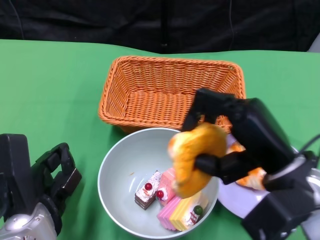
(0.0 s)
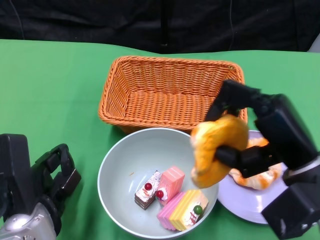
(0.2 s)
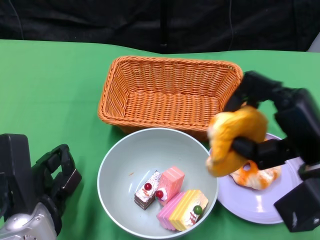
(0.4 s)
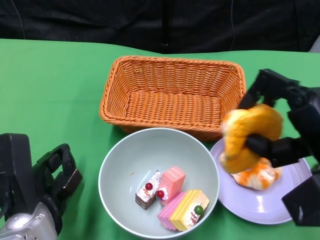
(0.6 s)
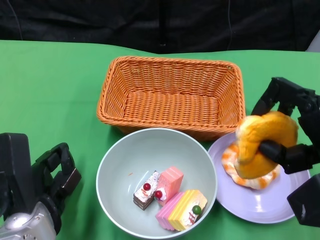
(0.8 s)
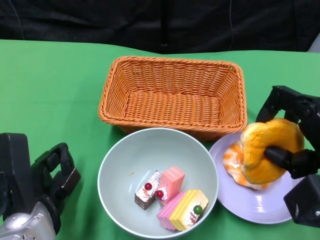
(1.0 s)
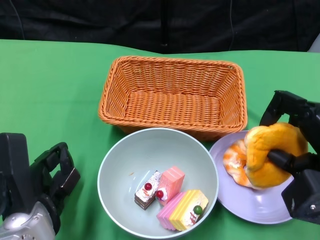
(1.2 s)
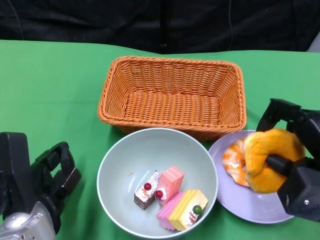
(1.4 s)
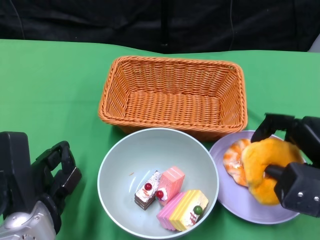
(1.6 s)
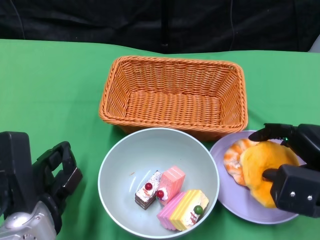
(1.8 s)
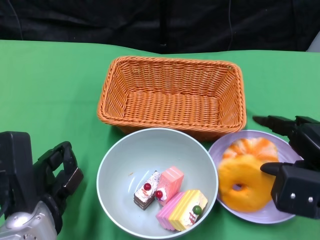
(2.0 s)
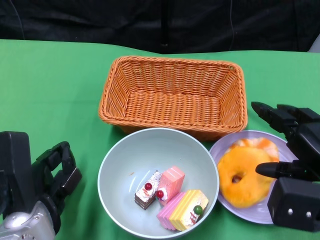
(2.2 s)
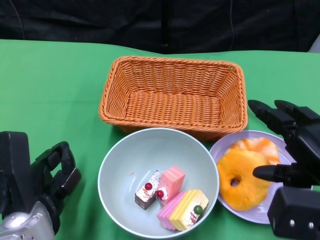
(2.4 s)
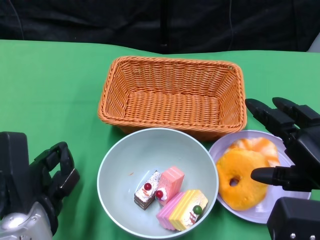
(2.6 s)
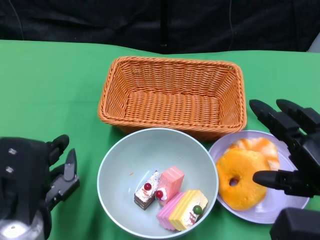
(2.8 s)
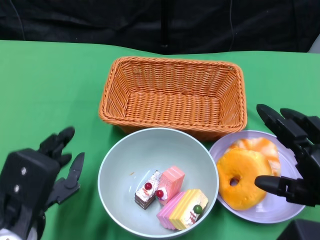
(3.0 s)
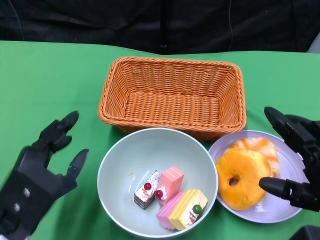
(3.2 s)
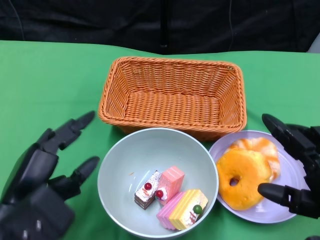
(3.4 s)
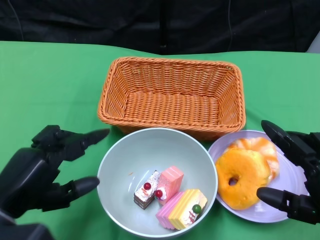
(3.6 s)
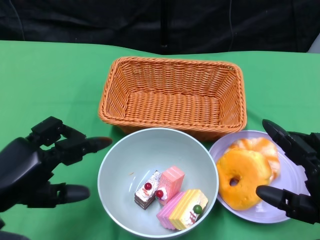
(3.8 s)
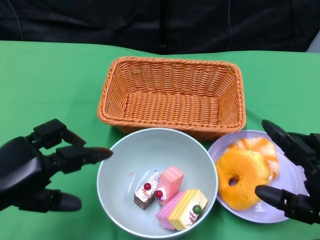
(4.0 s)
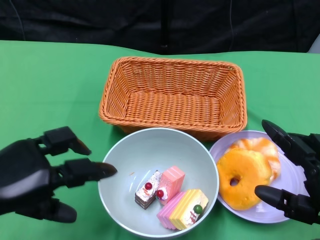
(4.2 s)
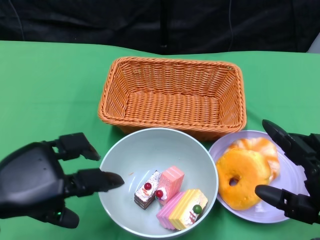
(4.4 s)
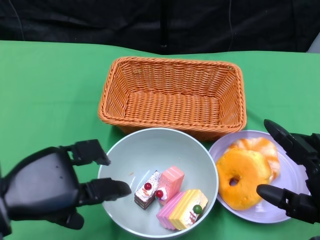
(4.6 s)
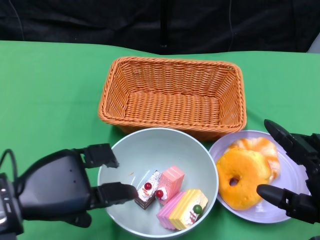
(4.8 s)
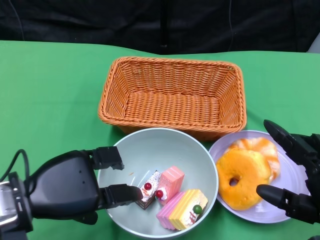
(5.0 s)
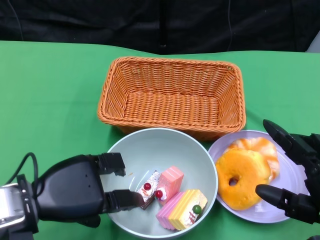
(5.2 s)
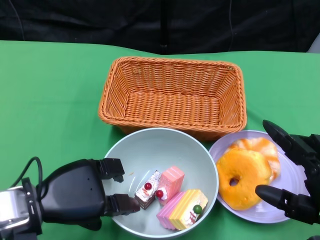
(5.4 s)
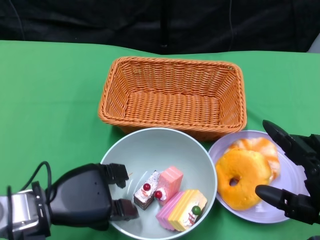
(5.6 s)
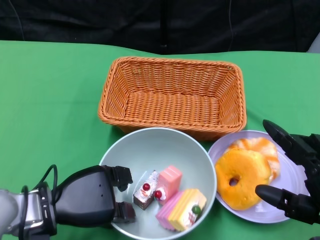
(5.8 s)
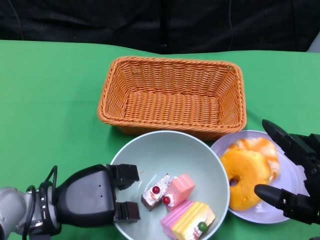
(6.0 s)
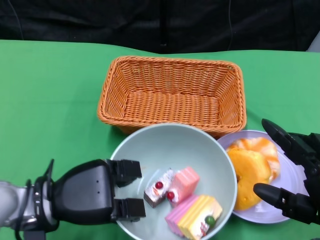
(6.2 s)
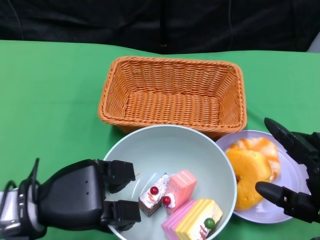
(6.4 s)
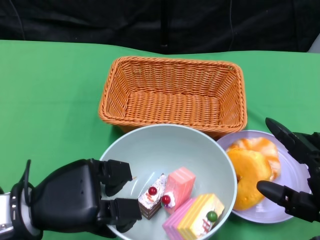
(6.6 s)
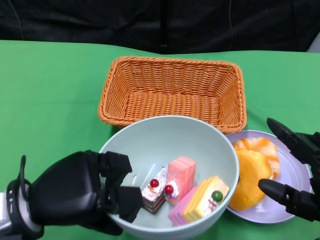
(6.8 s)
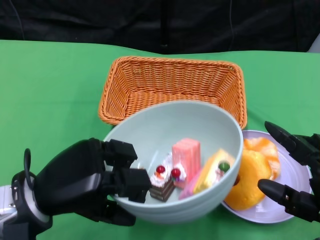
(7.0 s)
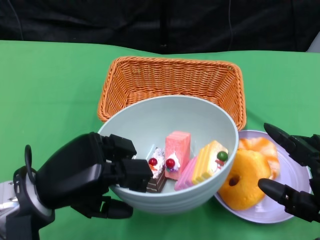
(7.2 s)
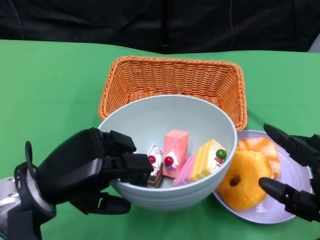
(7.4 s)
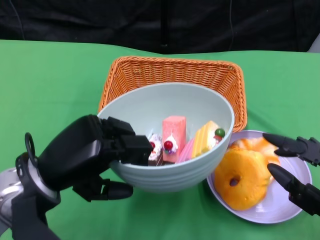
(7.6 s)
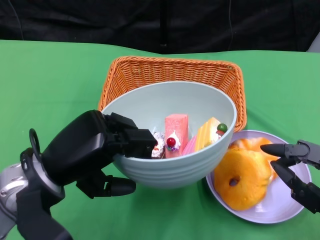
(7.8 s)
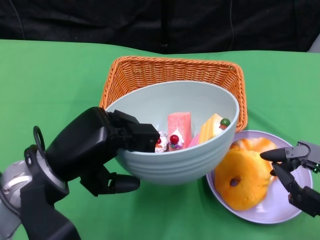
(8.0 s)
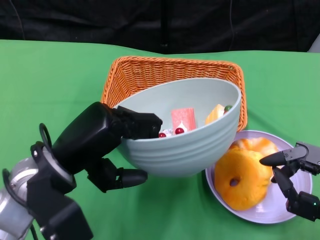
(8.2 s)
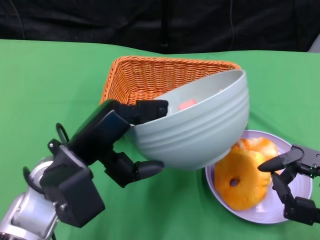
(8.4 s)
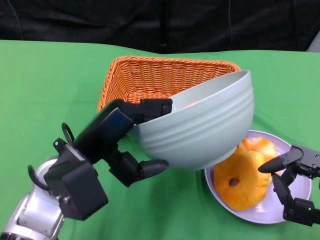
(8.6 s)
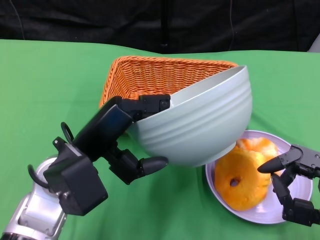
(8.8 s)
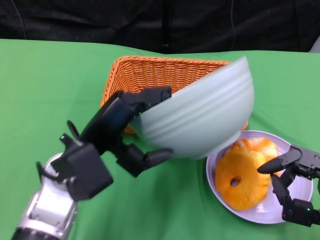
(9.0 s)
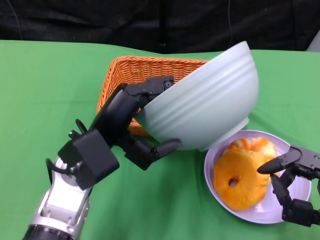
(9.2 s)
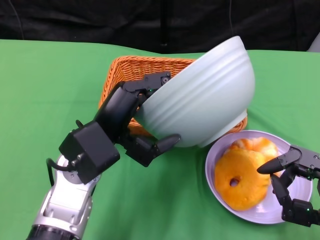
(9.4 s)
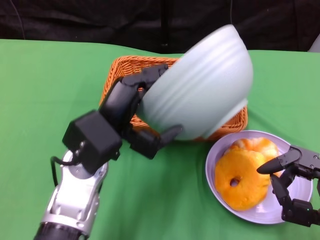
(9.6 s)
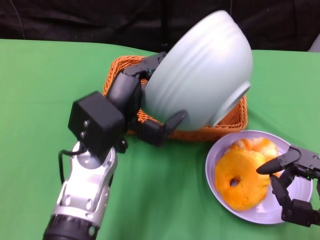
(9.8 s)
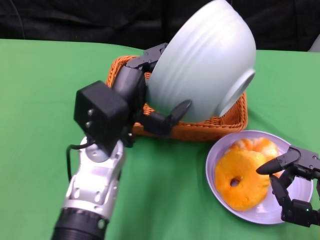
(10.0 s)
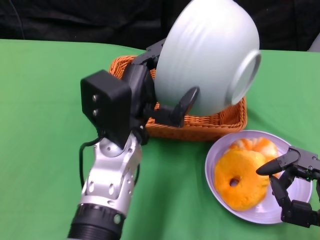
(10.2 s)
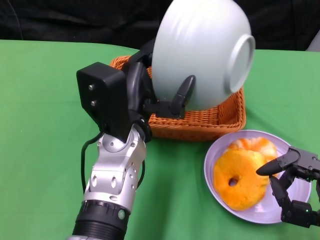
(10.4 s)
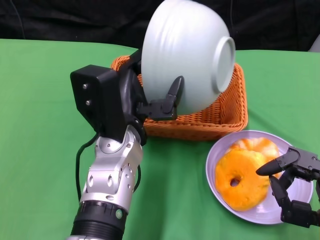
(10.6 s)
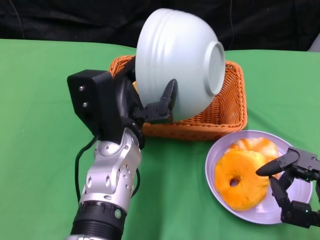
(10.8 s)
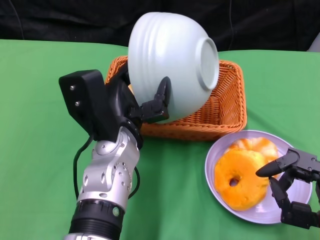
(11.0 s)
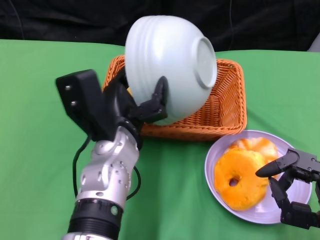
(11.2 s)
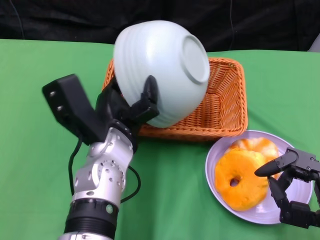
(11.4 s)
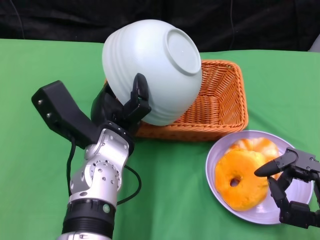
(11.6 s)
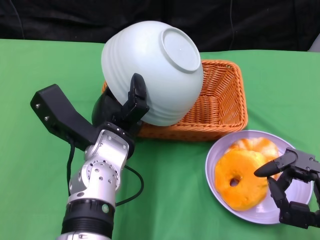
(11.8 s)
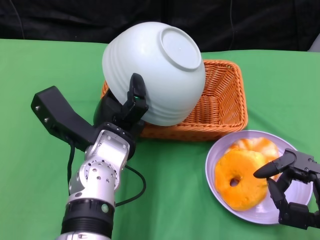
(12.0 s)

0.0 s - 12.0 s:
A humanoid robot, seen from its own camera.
Step, 0.0 s - 2.6 s: Pick up the bread with the right gripper and place it on the plate.
Step, 2.8 s - 6.0 s: Grasp the bowl with the left gripper.
0.0 s - 1.6 s: The right hand travels to the right by about 10 cm.
1.6 s - 3.0 s: The right hand travels backward by some 5 cm.
3.0 s - 4.4 s: The left hand is displaced to the left by roughly 5 cm.
4.4 s - 6.0 s: The left hand is displaced downward and to the right by approximately 10 cm.
6.0 s - 7.6 s: The left hand moves upward, roughly 10 cm.
7.6 s - 9.0 s: The left hand moves to the right, approximately 5 cm.
9.0 s - 10.4 s: The left hand shifts about 5 cm to the right.

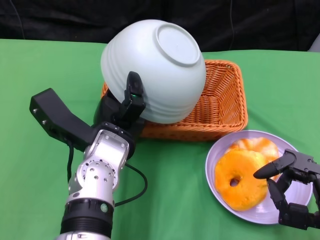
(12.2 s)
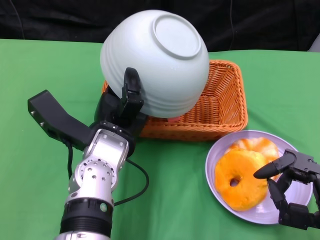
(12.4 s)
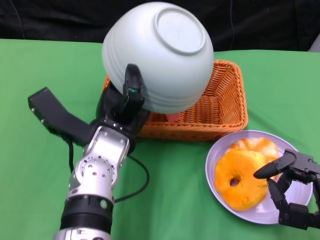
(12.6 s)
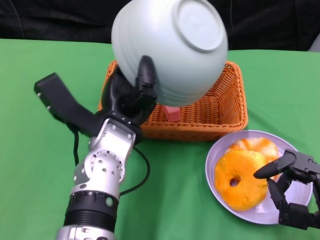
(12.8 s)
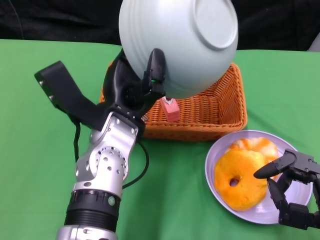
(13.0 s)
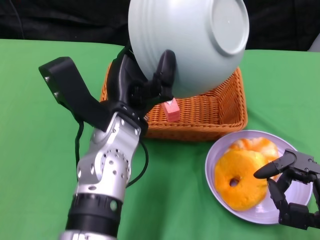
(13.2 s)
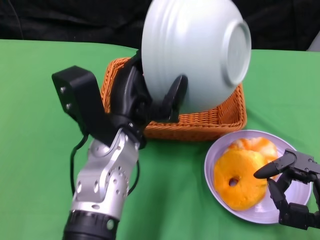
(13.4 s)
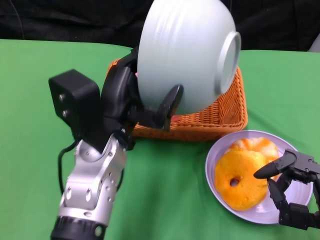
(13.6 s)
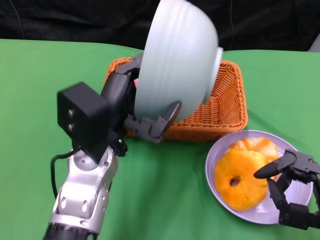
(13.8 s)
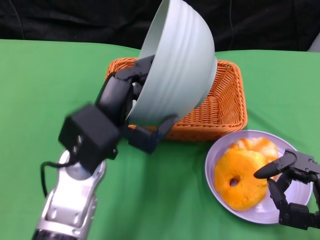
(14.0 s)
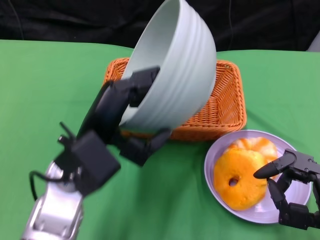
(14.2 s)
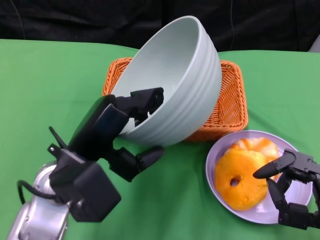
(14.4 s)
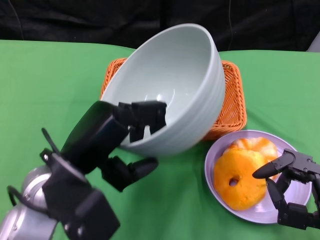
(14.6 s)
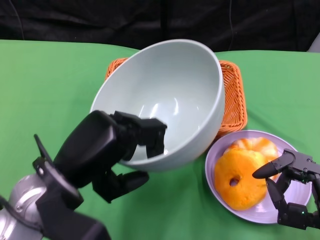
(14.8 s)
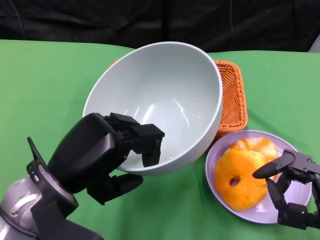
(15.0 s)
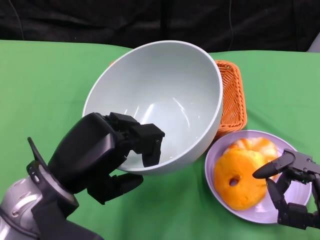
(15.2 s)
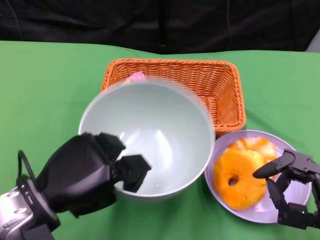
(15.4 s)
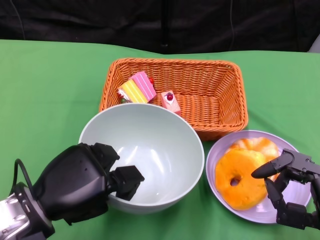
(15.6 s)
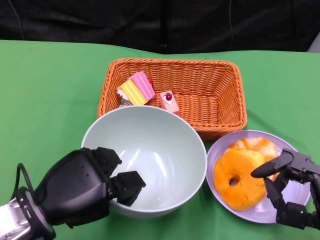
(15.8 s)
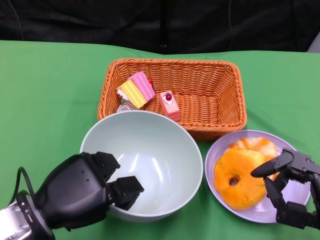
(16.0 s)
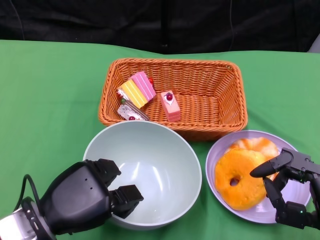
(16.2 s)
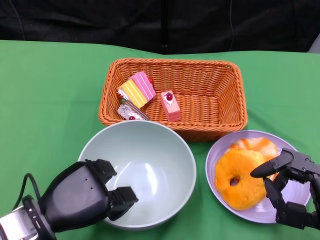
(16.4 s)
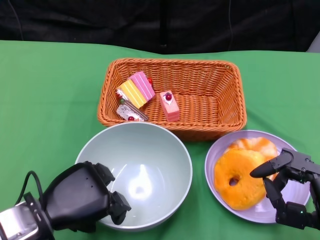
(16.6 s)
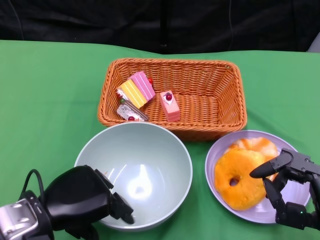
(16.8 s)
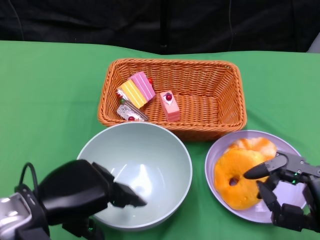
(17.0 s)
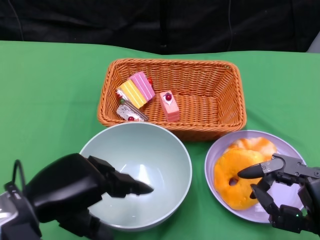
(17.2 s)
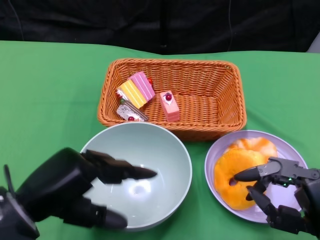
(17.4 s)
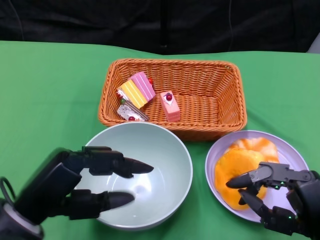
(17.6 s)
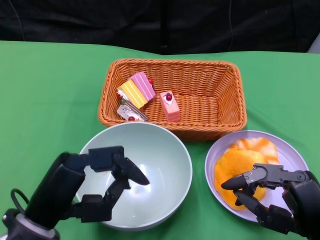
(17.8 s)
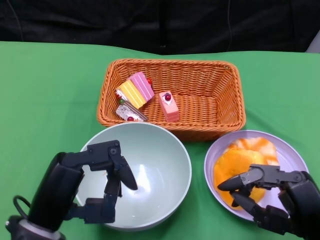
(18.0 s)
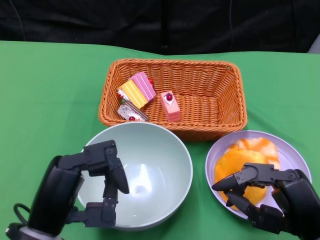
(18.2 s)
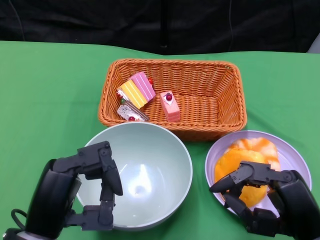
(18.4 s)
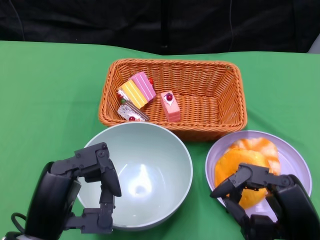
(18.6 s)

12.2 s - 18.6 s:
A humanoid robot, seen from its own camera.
Step, 12.4 s - 16.6 s: Place the bowl on the table with the left gripper.
13.8 s - 15.4 s: The left hand goes some 10 cm to the left and backward.
17.0 s - 18.6 s: The left hand ends up about 5 cm from where it was.

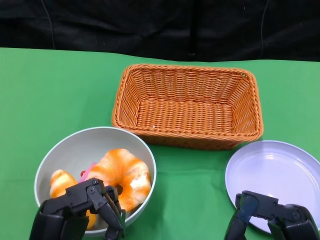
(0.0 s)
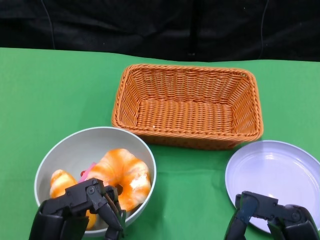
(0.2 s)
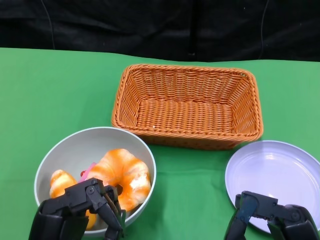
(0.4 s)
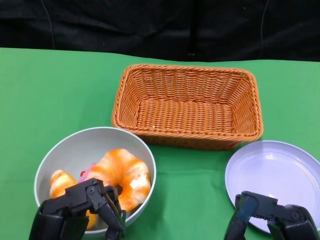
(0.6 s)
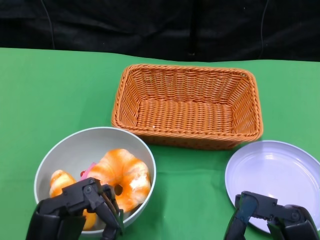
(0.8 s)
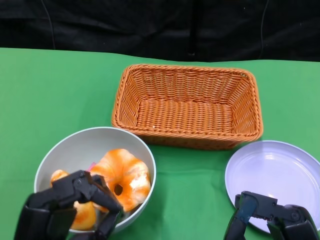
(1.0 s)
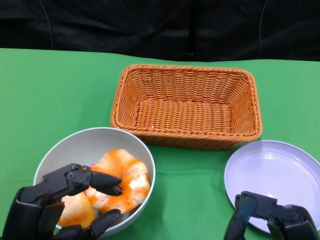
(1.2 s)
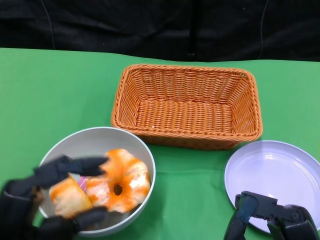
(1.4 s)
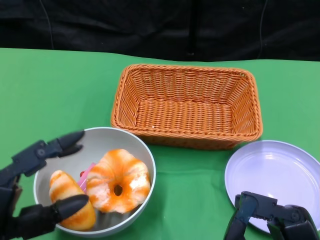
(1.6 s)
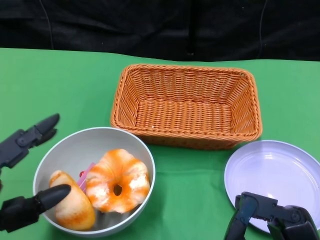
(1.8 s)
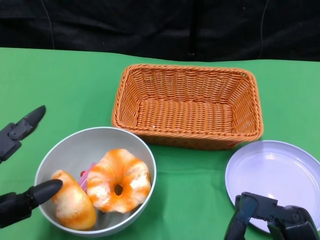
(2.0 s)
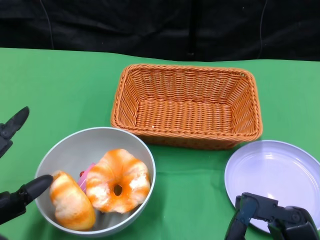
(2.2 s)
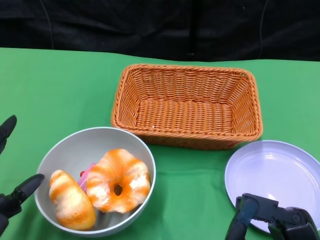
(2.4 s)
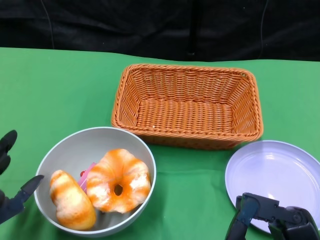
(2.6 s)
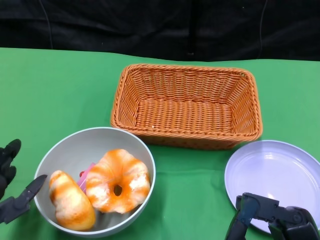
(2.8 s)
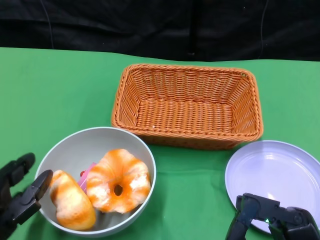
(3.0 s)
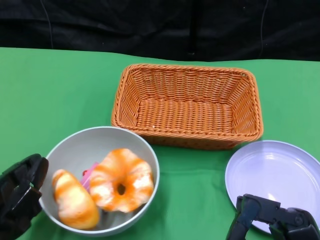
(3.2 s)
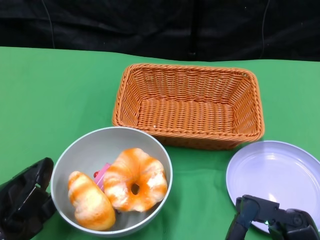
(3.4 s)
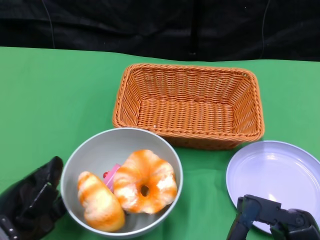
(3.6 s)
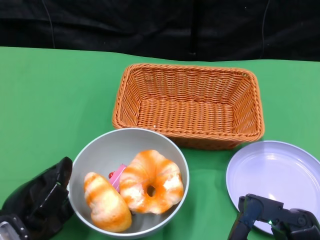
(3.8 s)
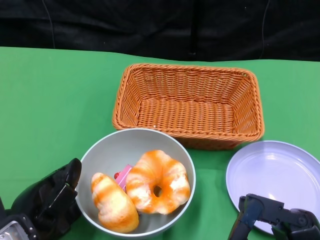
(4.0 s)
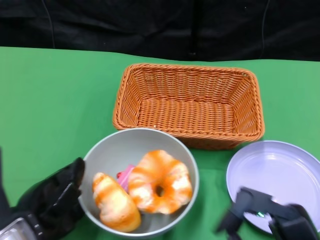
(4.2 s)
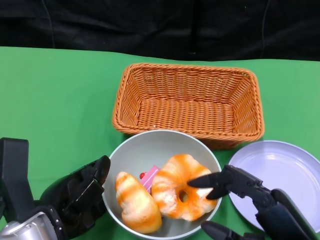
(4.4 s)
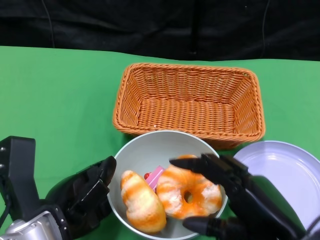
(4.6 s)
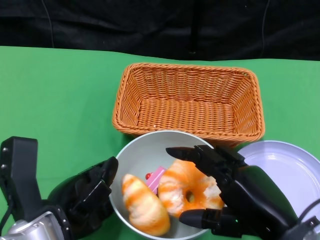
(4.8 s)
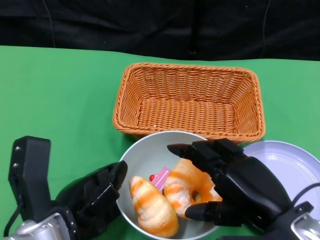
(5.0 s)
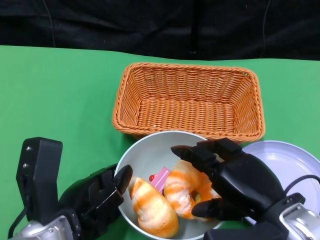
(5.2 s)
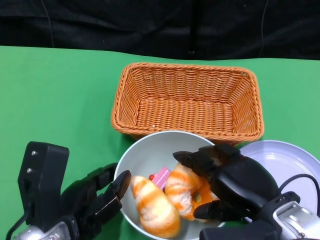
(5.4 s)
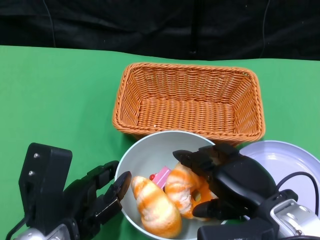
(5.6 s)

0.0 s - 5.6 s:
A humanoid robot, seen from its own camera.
Step, 0.0 s - 4.2 s: Push the bowl to the center of the table using the left gripper.
1.4 s - 2.8 s: The left hand changes place by about 5 cm.
2.8 s - 4.2 s: The left hand shifts roughly 5 cm to the right.
4.2 s - 5.6 s: The right hand shifts approximately 10 cm forward.
